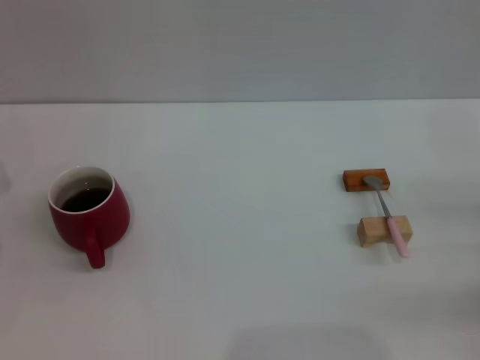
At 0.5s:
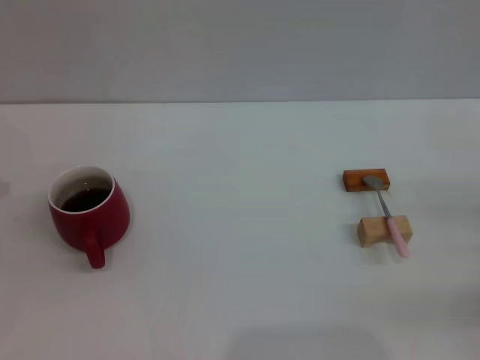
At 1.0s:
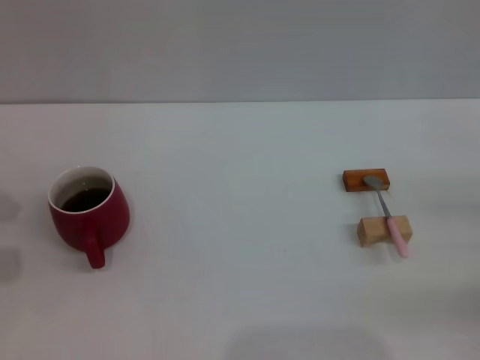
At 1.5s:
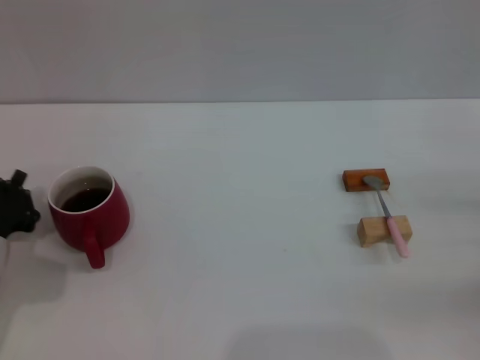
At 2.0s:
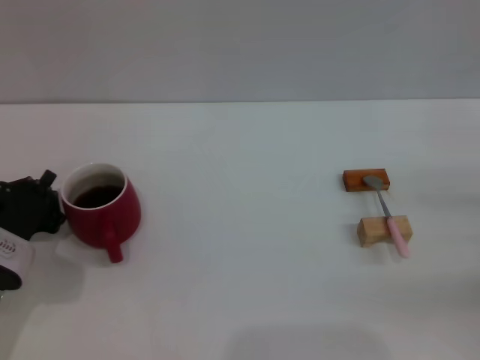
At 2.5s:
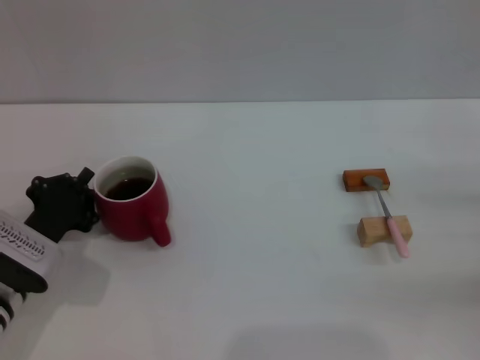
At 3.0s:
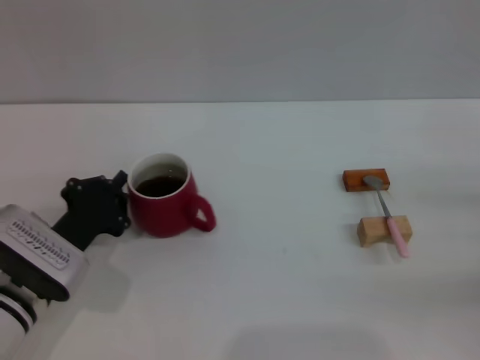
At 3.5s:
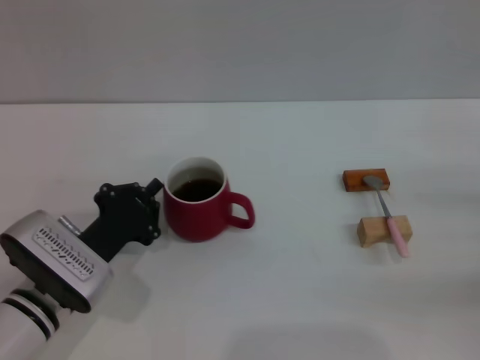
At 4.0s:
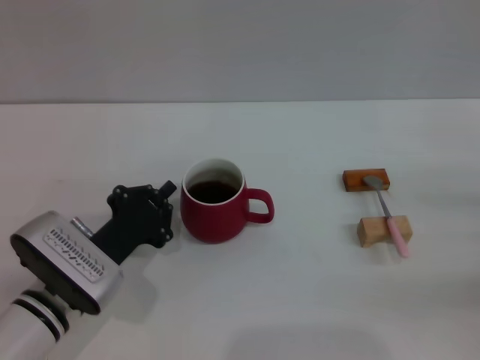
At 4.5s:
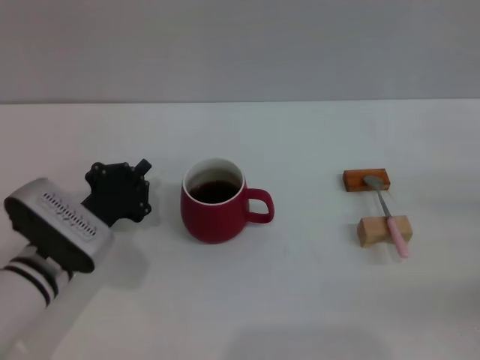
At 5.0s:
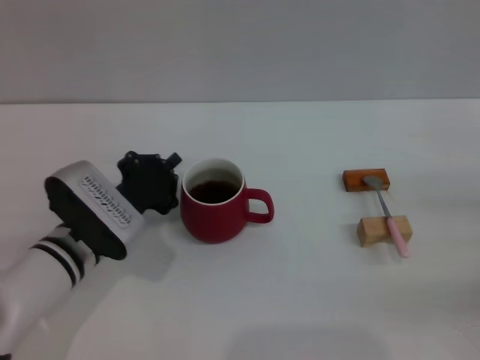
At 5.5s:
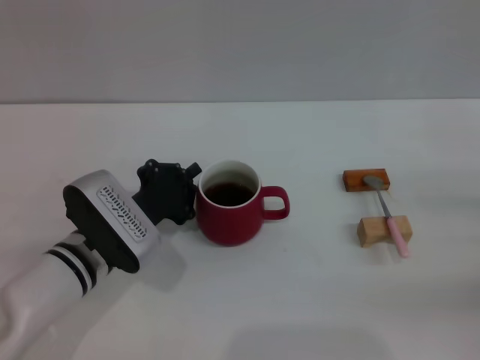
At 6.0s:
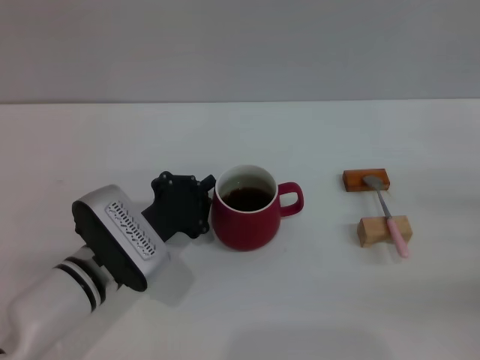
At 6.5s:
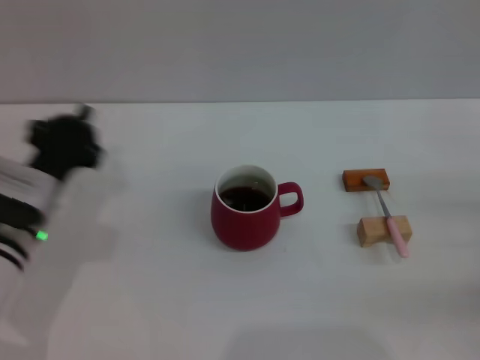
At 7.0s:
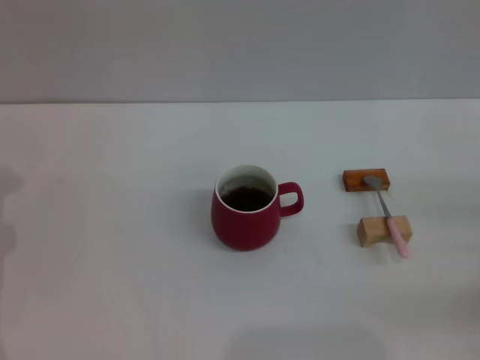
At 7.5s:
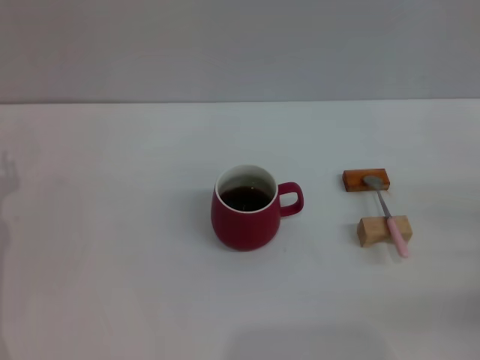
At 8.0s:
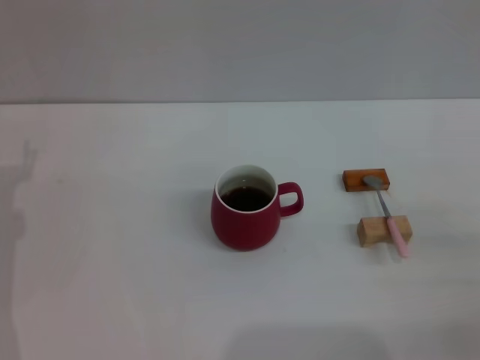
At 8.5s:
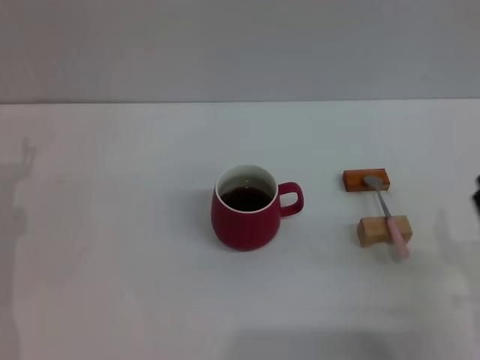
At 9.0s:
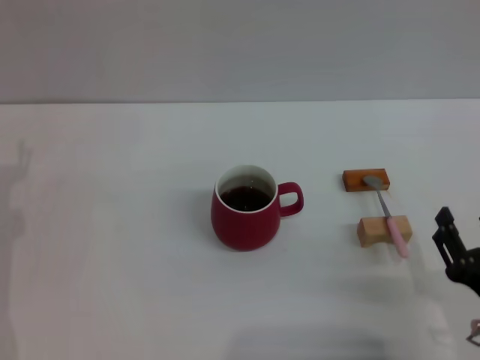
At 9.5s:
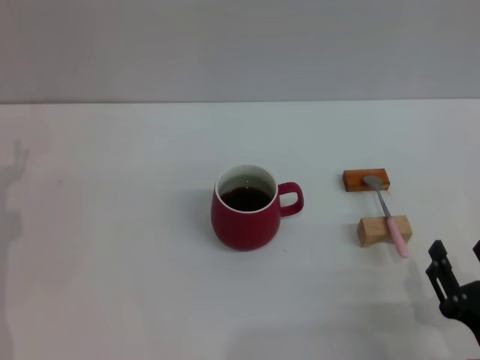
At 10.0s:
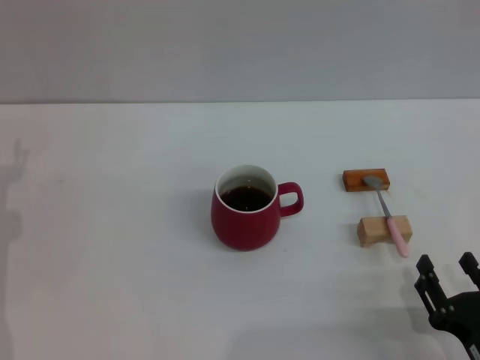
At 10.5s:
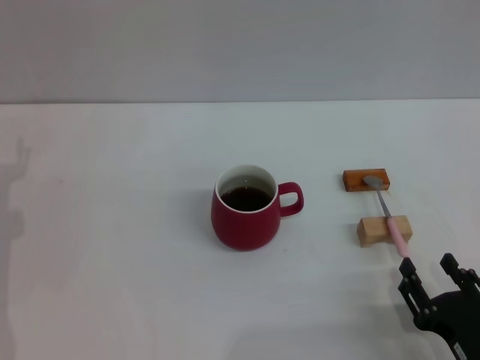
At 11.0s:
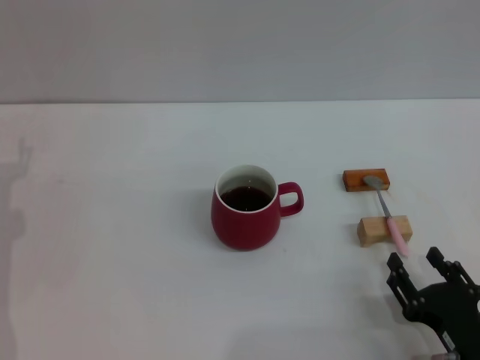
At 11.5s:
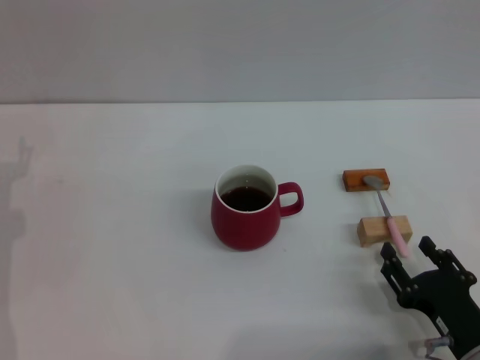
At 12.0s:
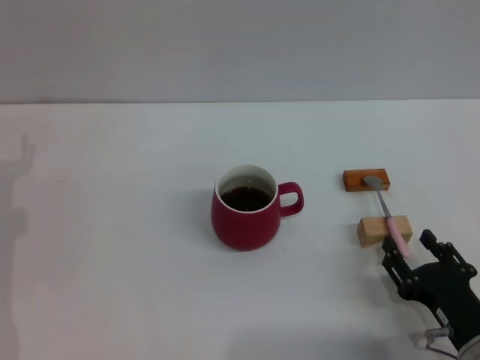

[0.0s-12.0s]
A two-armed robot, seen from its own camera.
Task of the whole recording: Move the red cup to the center, lift the pink spoon, stir it three times in the cup, and put the spoon into the cup.
Step, 0.0s to 6.0s: Move the cup with coffee to the center of view with the left gripper.
0.0s to 2.0s: The left gripper moves to the right, about 5 cm, and closes its fingers.
2.0s to 4.0s: The left gripper shifts approximately 10 cm to the right.
4.0s to 6.0s: There are only small adjustments of the grippers.
6.0s to 8.0s: The left gripper heads to the left, covering some 15 cm, and opens; the right gripper shifts approximately 10 cm backward and to the left.
8.0s to 10.0s: The right gripper shifts roughly 15 cm to the left and backward.
10.0s to 12.0s: The right gripper heads forward, covering some 5 cm.

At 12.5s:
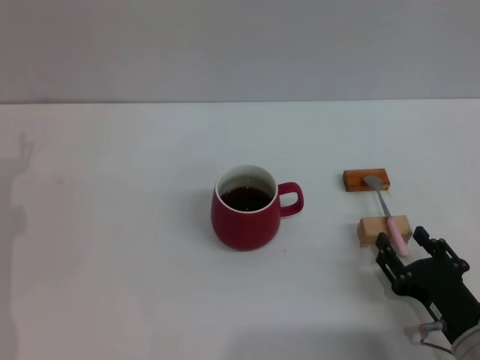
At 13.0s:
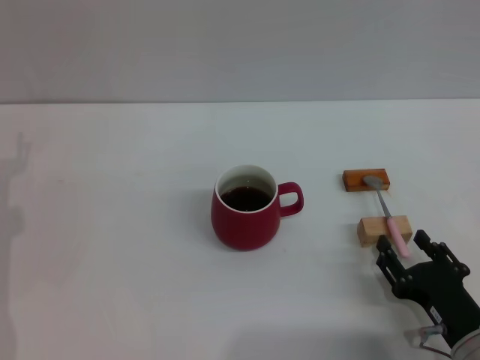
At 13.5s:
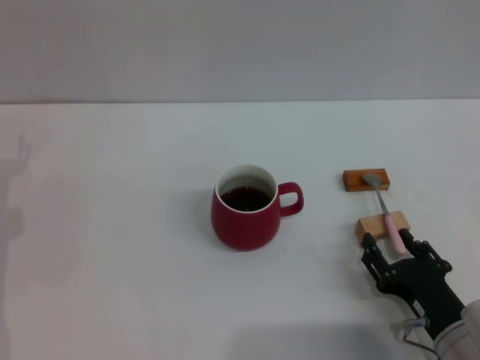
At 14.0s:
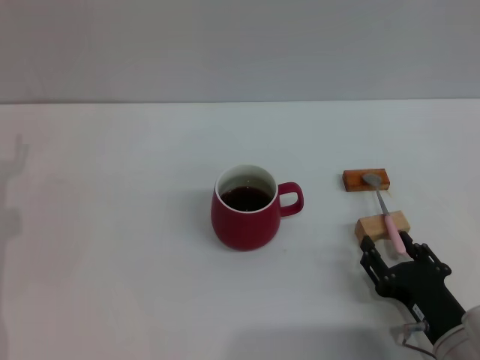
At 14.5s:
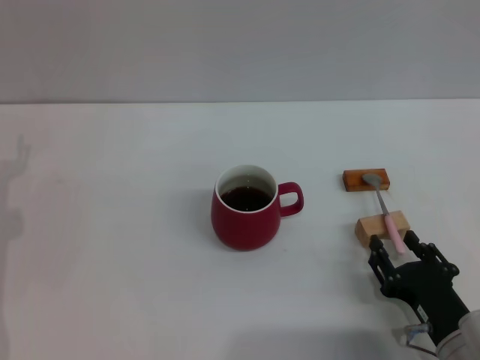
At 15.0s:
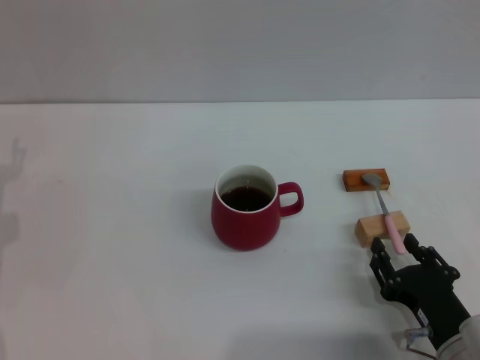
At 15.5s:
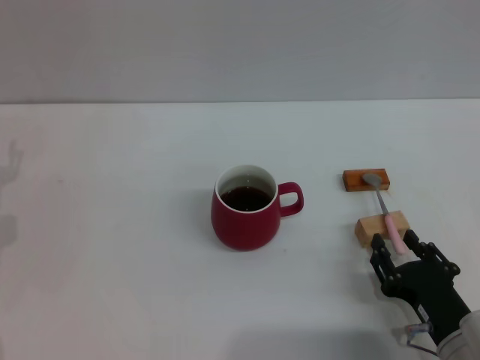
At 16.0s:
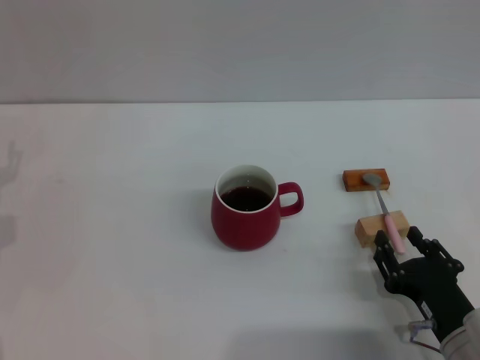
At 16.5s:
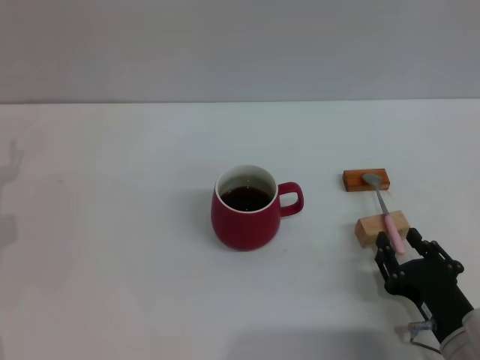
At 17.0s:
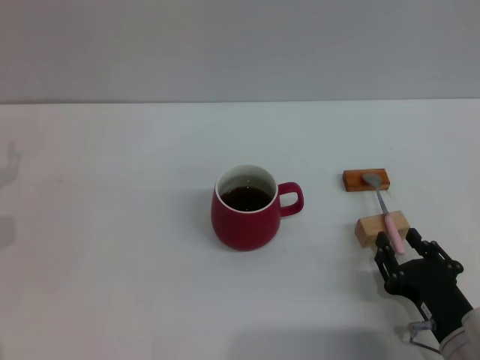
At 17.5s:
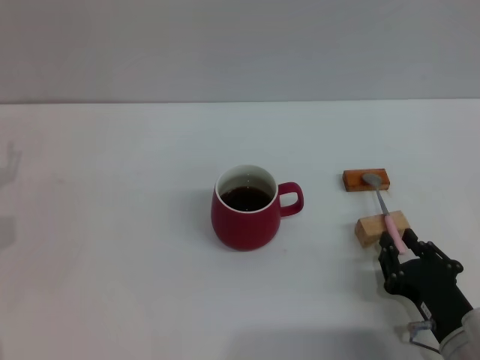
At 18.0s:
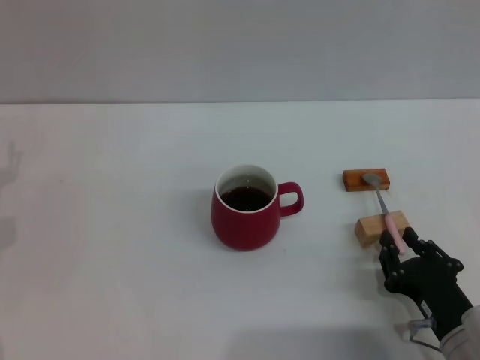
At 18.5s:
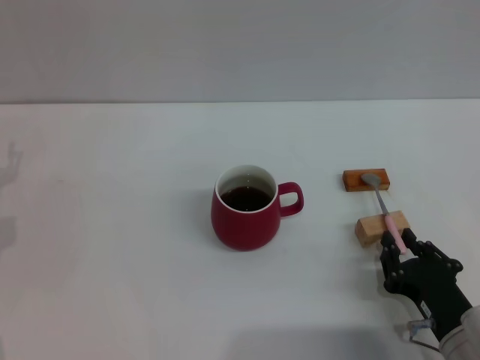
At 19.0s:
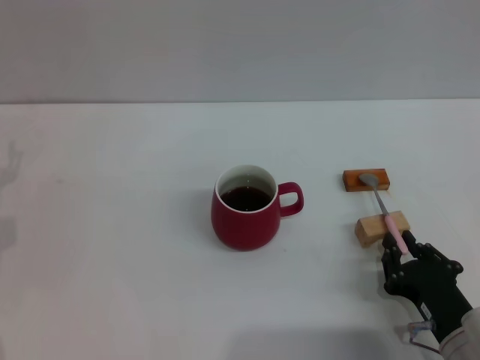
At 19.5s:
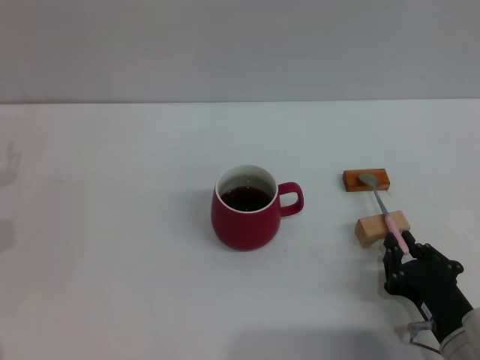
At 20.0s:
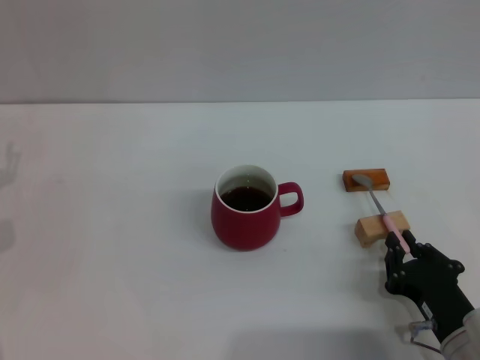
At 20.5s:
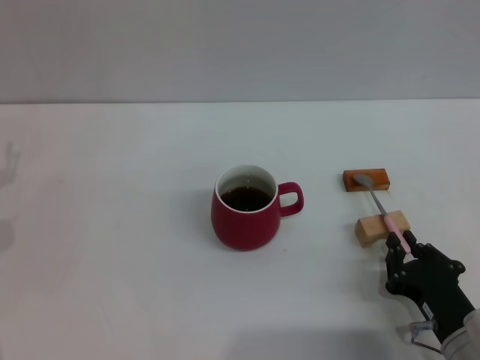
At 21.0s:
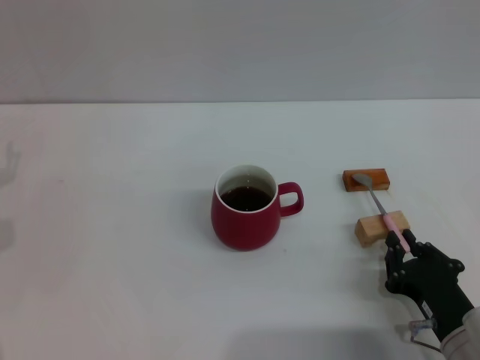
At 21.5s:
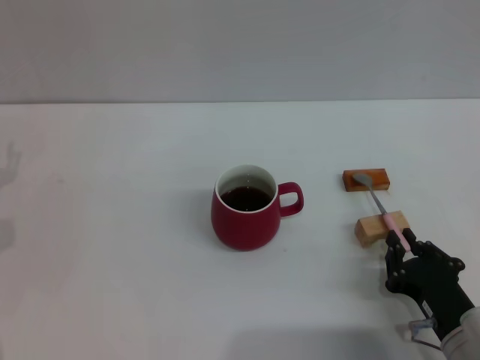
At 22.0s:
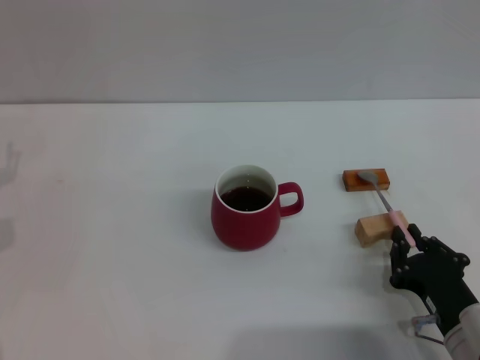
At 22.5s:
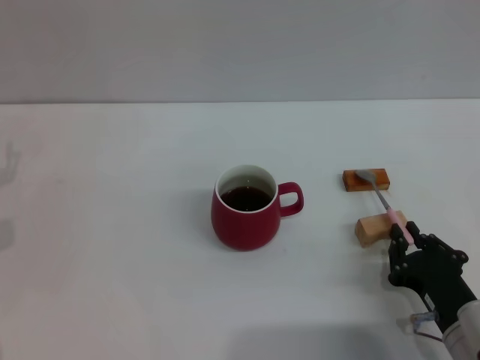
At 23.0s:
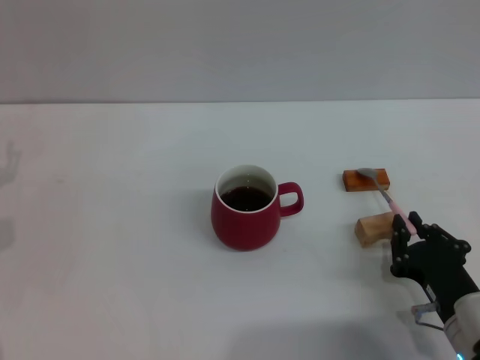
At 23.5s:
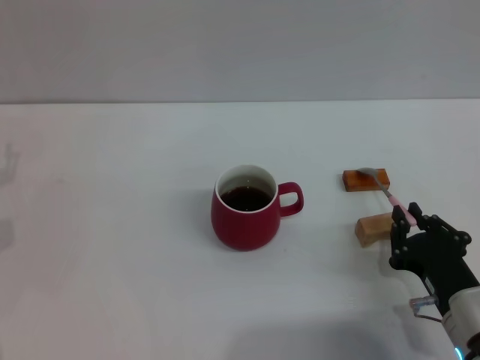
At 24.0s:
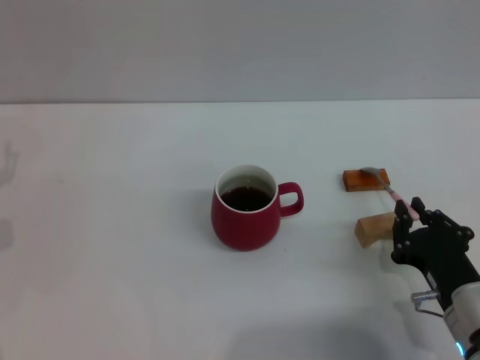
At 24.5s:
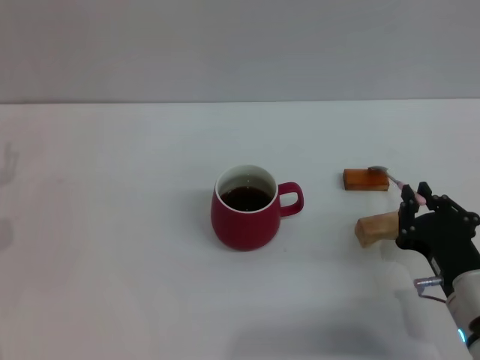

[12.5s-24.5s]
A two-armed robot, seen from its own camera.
Task of the whole recording: Move the red cup to the center, lift the pink spoon, stir it three times in the cup, and put the spoon into the cup.
12.5s to 14.5s: There are only small adjustments of the grippers.
14.5s to 16.5s: Both grippers stay put.
16.5s to 18.5s: The right gripper closes.
18.5s to 22.5s: The two grippers keep their place.
22.5s to 24.5s: The grippers make only small movements.

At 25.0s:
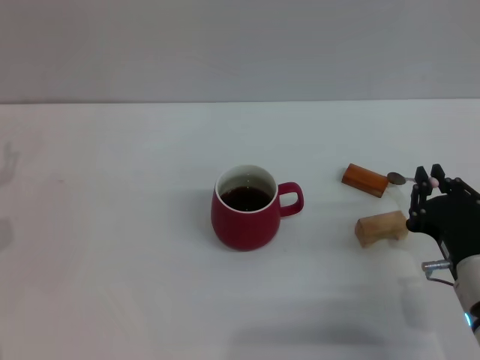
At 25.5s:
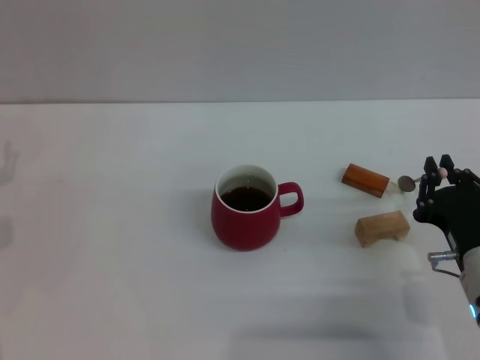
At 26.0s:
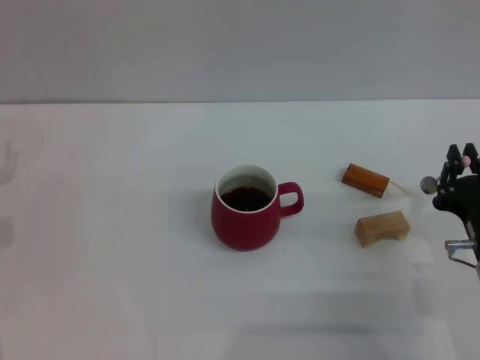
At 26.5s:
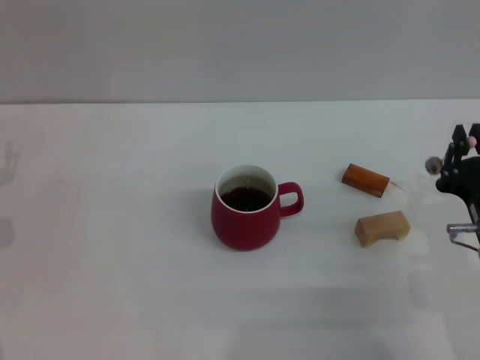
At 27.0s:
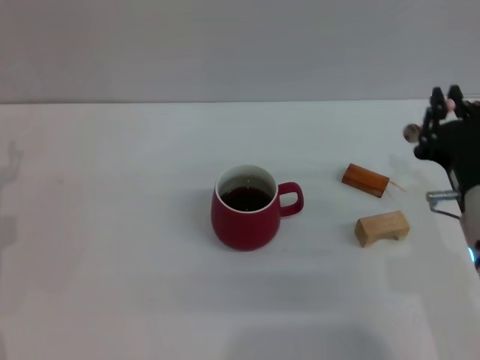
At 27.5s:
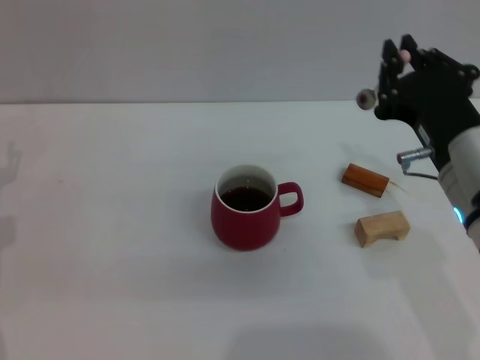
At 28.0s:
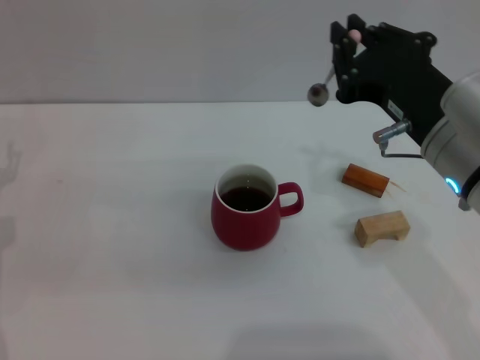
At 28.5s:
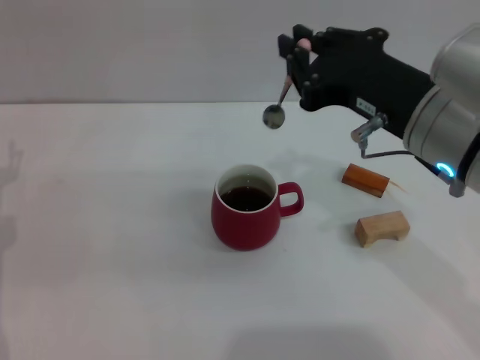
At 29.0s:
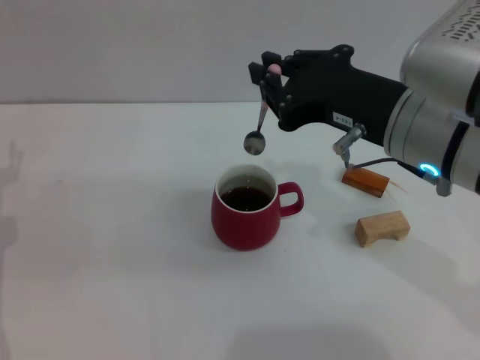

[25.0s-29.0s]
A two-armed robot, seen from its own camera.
Task of the whole recording: Move the red cup to the center, lift the pink spoon, stir it three times in the cup, and put the spoon into the cup.
25.0s to 27.0s: The right gripper goes about 5 cm upward.
27.0s to 29.0s: The right gripper goes roughly 15 cm upward and to the left.
